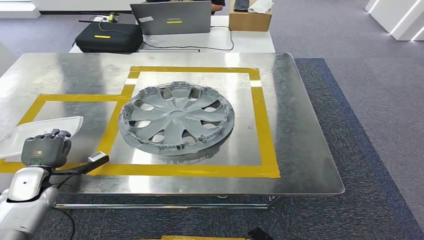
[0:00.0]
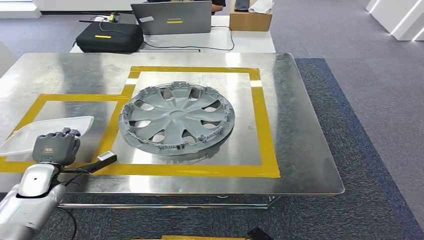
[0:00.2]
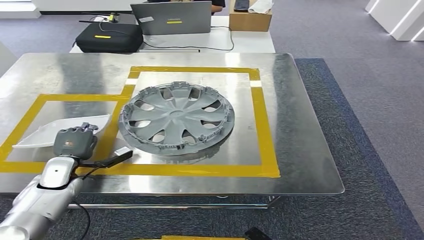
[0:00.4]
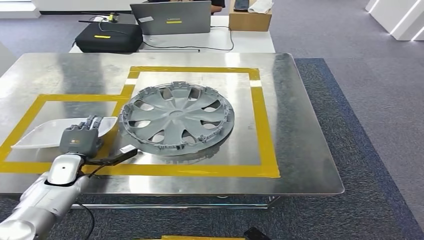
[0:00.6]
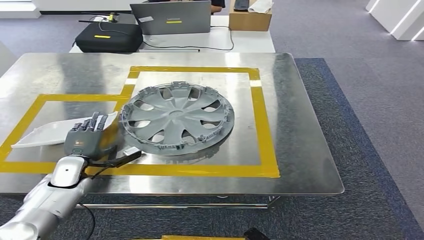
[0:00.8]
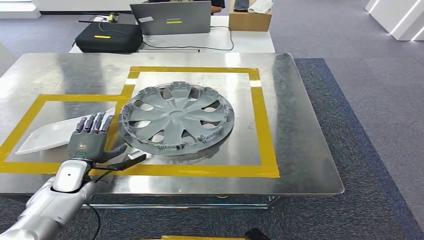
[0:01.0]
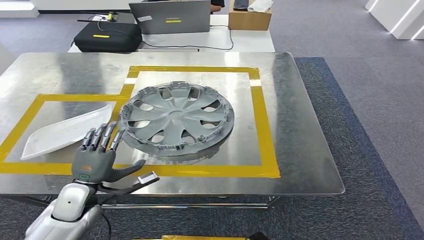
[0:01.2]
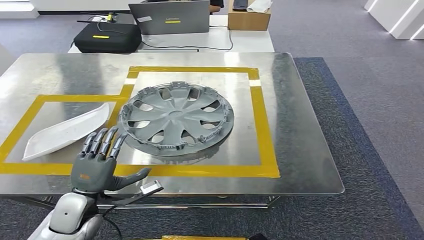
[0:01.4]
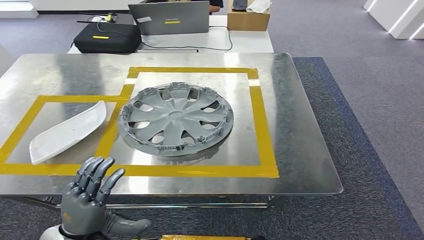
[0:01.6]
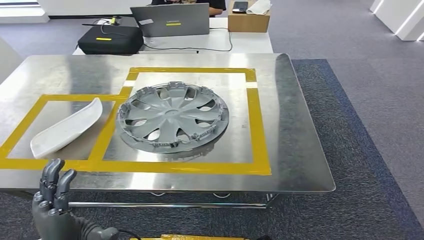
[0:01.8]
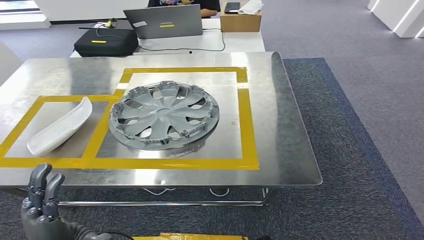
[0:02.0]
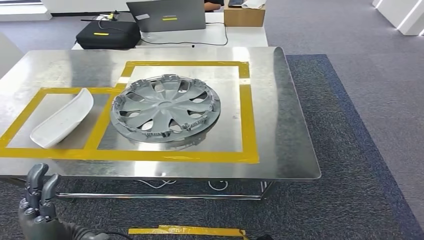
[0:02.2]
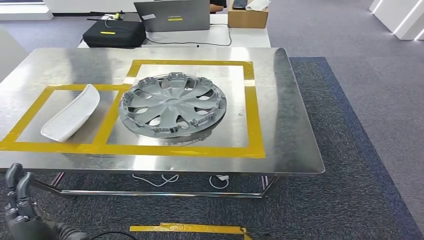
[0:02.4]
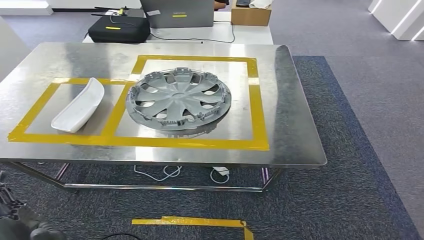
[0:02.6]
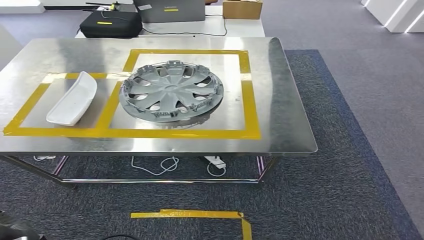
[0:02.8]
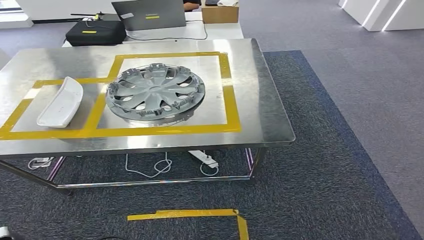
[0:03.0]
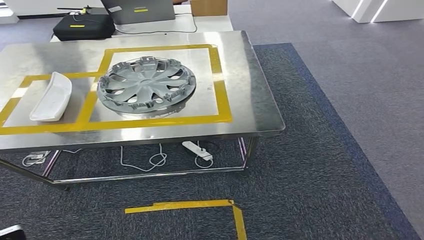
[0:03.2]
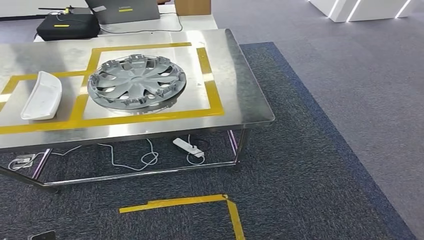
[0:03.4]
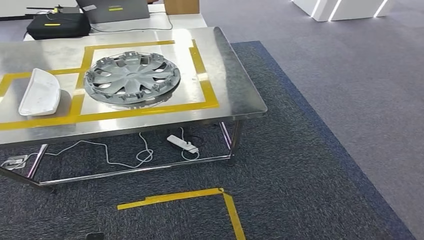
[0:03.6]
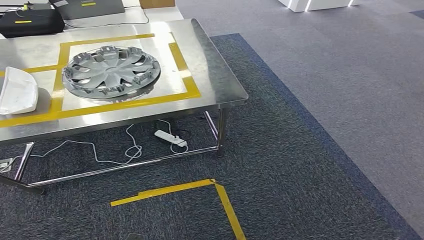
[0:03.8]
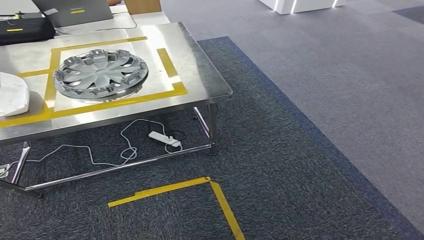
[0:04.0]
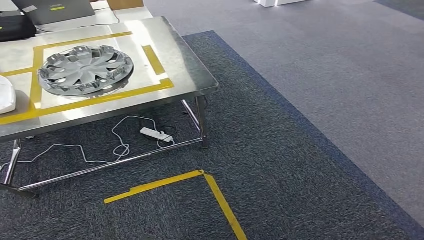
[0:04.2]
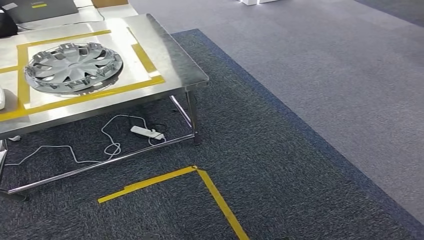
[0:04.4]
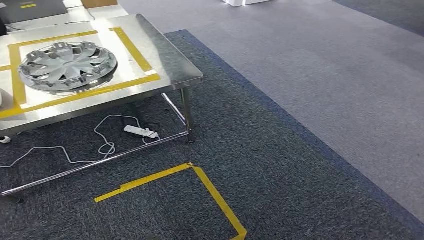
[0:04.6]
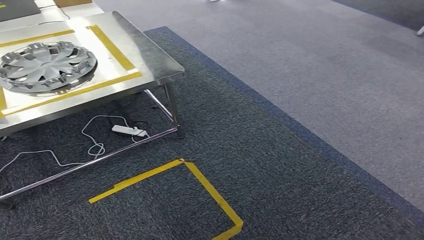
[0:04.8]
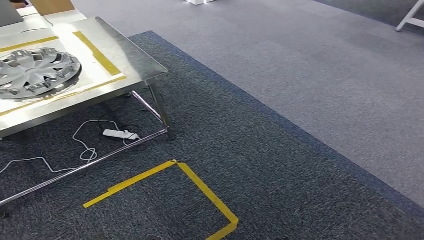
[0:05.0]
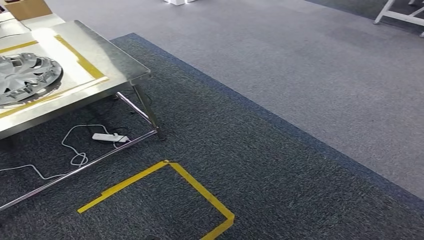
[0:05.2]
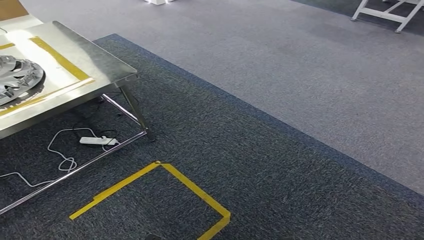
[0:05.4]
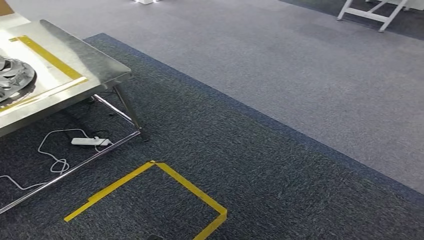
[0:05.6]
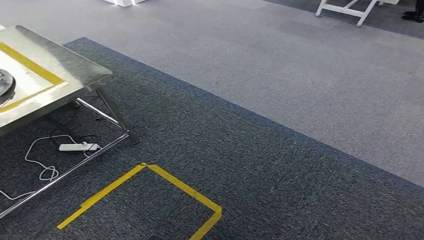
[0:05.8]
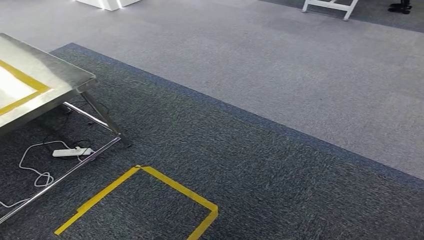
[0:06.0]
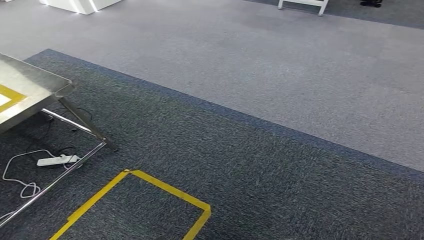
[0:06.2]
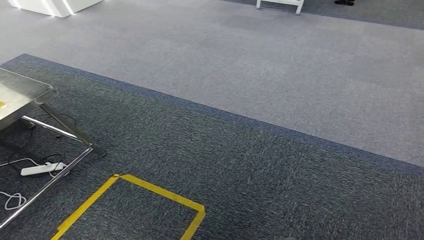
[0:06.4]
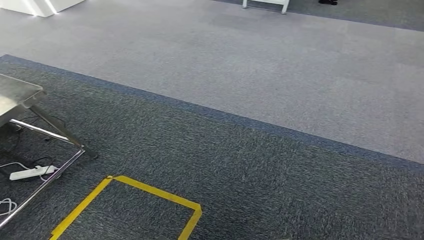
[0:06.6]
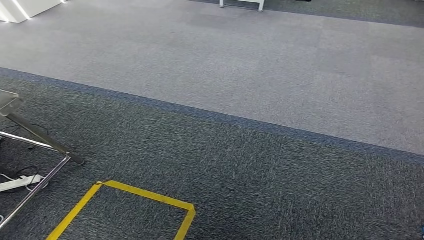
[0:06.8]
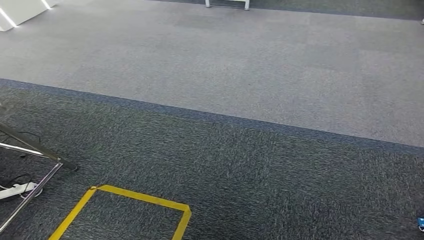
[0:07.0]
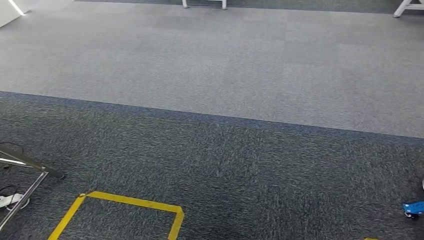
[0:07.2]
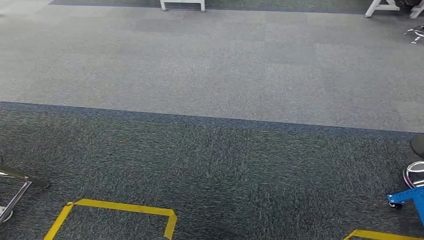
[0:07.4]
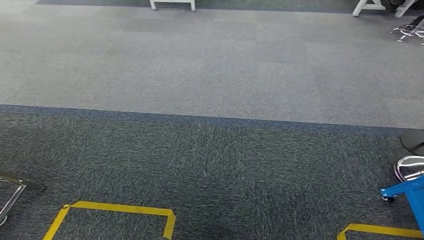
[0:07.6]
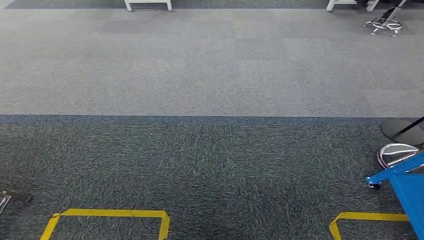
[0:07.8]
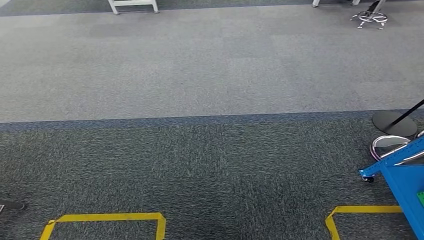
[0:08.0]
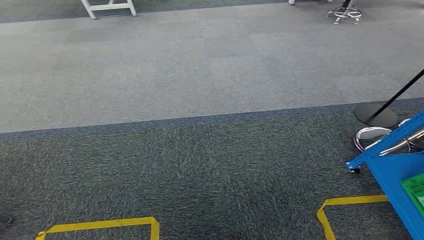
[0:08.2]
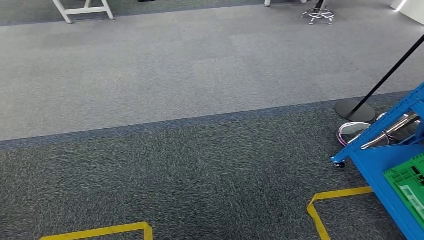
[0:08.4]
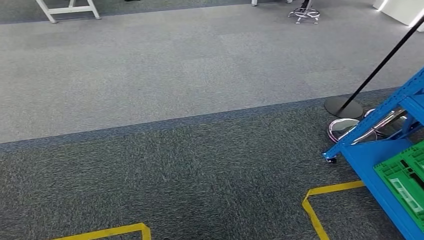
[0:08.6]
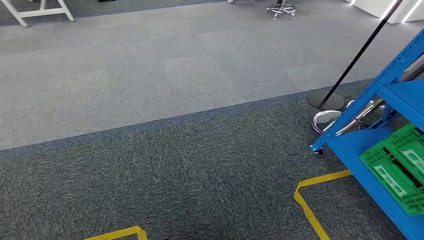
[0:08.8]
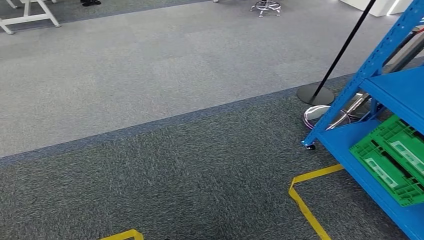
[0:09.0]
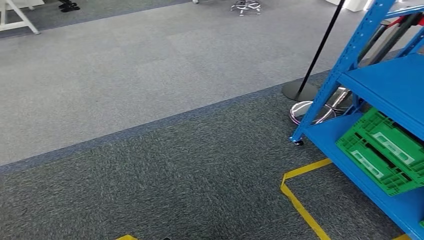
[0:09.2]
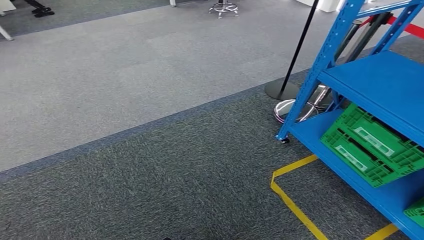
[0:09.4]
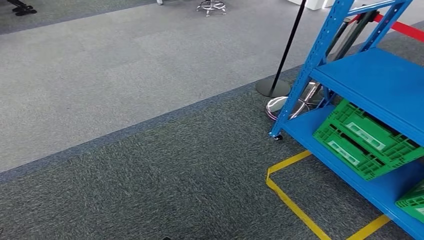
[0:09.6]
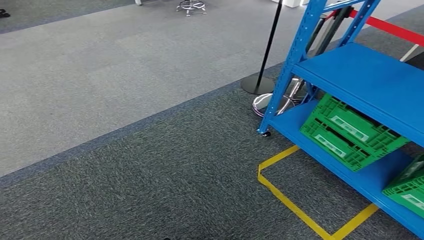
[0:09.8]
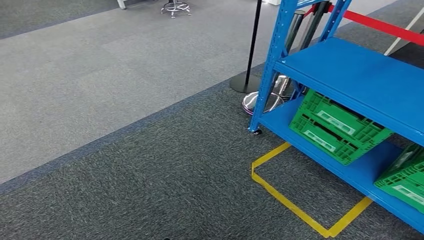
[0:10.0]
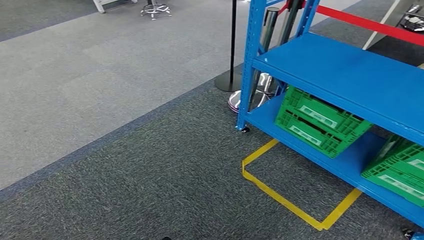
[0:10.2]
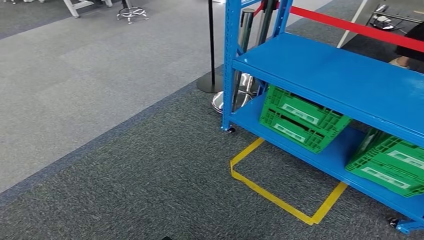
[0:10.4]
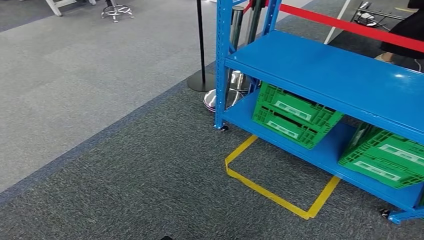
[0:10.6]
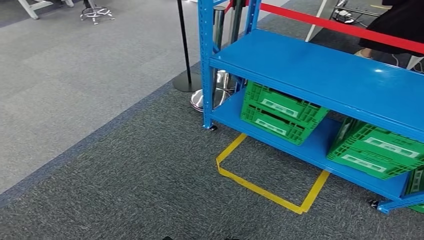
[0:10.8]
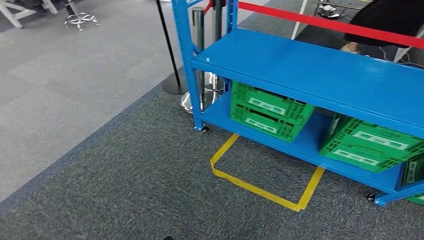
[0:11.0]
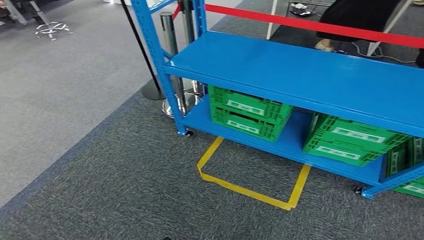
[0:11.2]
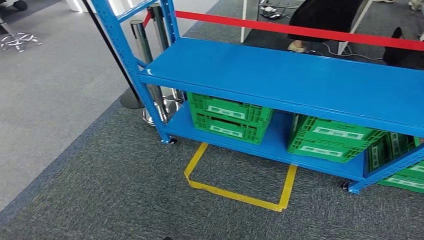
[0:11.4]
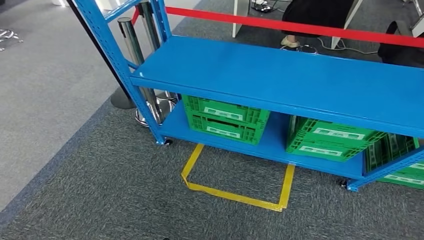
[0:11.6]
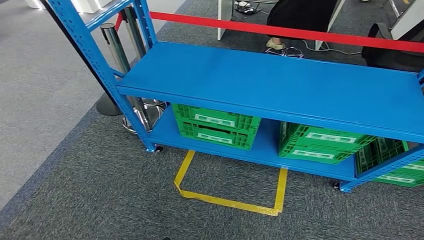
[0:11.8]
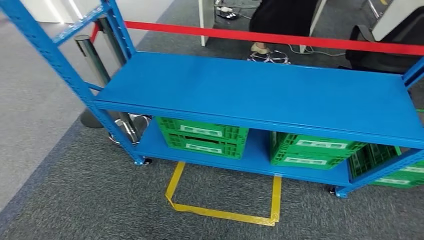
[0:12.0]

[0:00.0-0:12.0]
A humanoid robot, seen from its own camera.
Step, 0:00.0 to 0:02.8: Insert the small parts into the corresponding holes on the workbench.
0:00.0 to 0:01.6: The left hand goes roughly 20 cm to the right and backward.

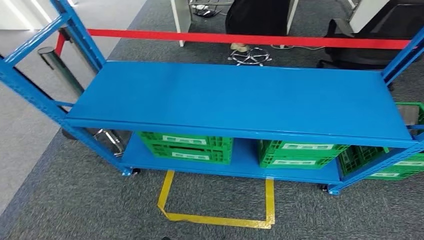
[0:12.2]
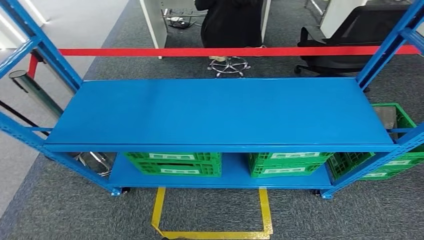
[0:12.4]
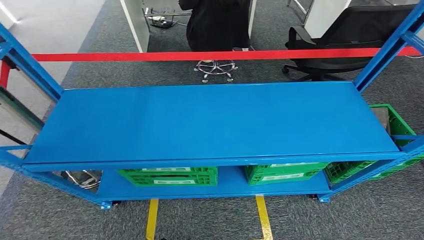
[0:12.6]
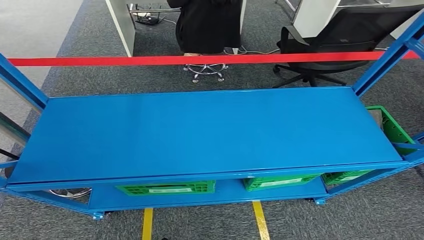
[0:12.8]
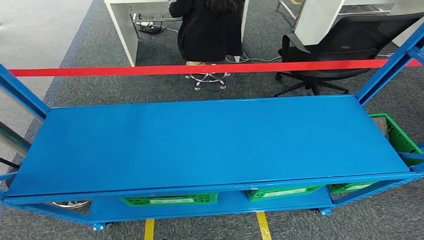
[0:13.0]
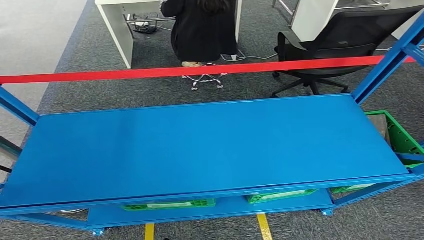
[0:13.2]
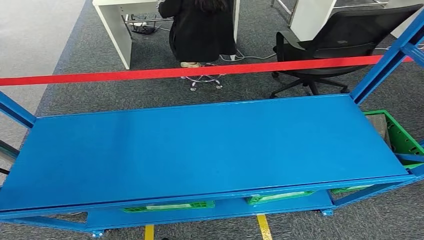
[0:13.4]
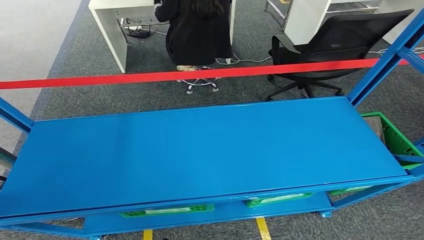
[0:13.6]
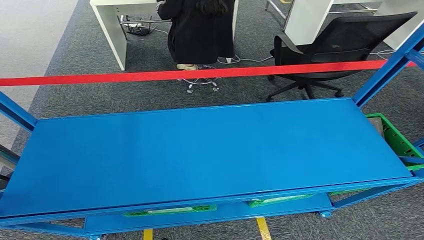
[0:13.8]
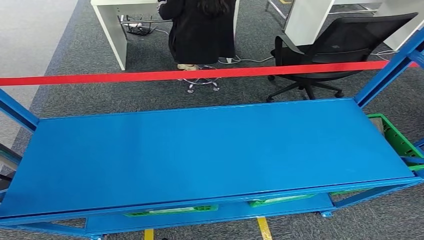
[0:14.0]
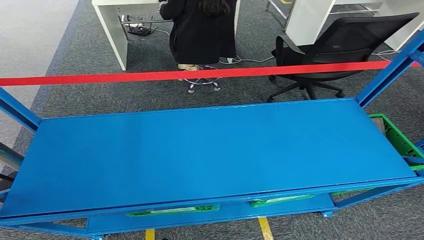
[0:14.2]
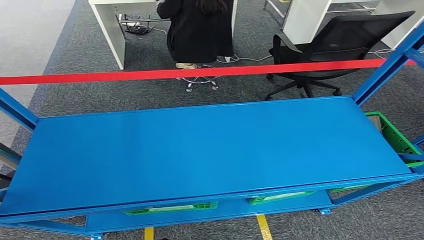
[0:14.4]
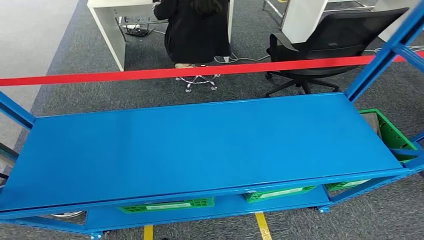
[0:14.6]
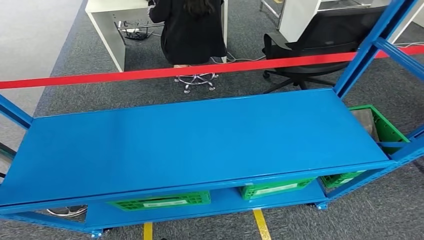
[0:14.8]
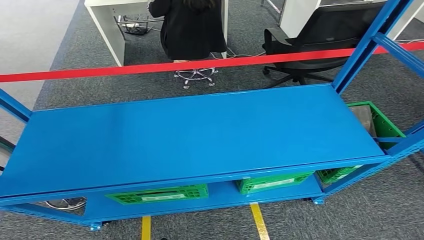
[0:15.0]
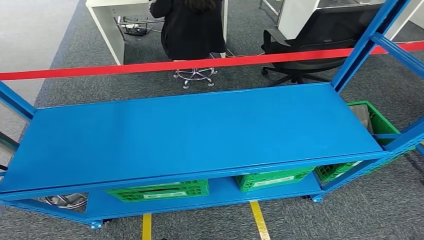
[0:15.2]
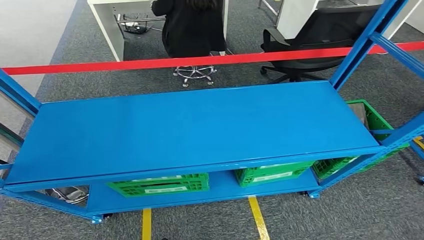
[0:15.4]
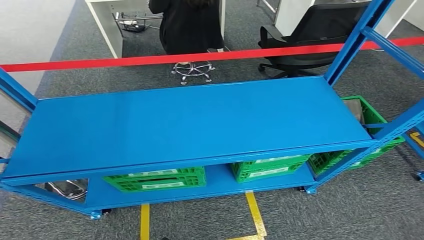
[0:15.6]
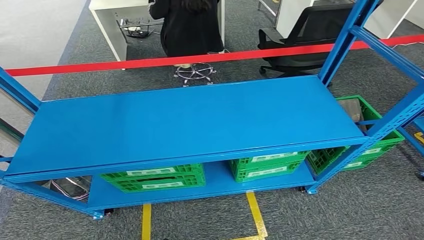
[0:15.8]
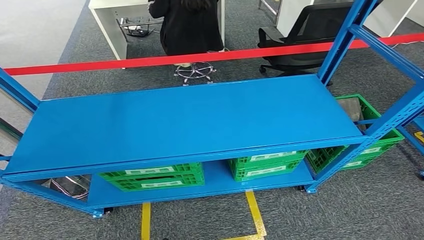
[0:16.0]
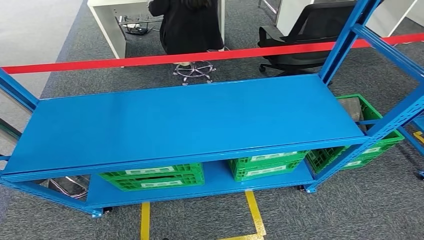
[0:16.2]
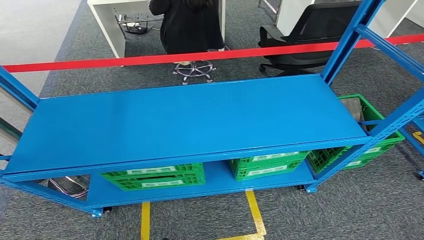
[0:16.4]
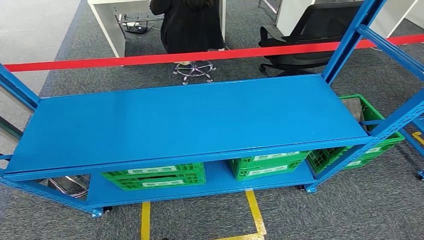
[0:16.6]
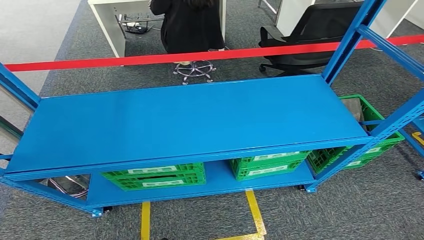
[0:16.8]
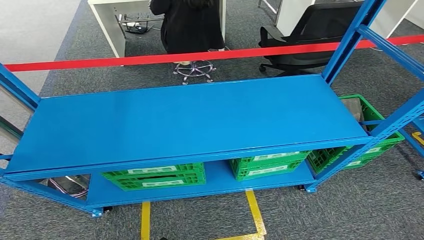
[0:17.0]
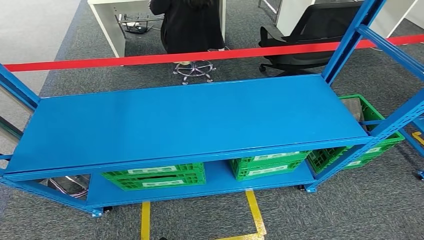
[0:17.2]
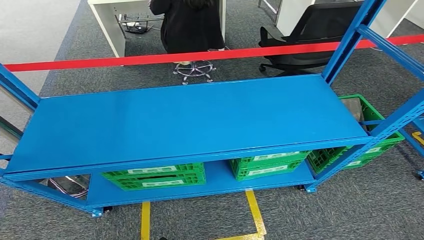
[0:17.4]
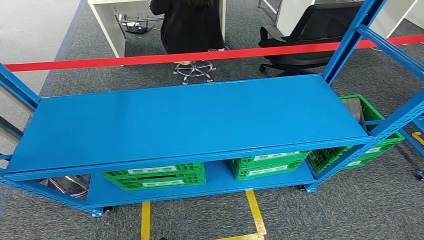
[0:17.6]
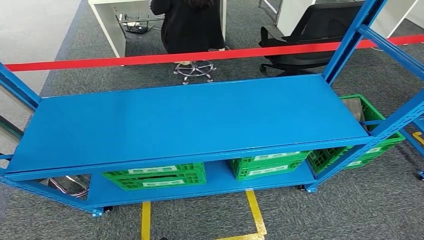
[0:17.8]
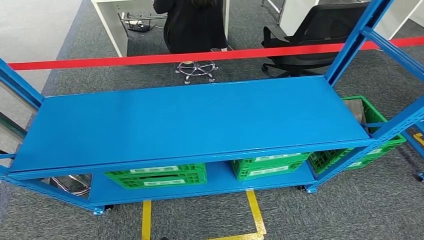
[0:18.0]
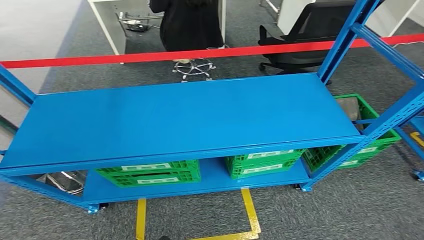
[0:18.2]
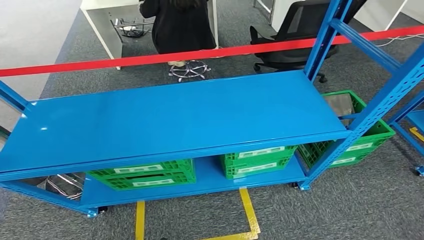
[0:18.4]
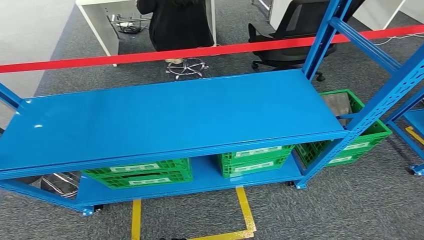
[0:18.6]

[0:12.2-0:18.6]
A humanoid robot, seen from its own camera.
0:15.4 to 0:17.0: The hands make only small movements.
